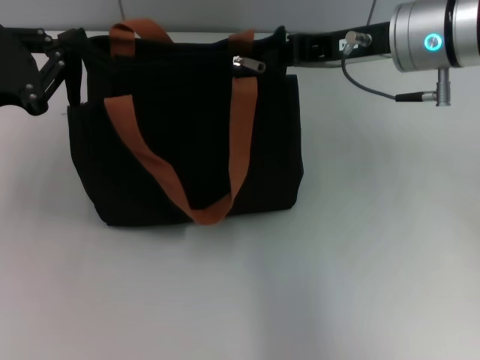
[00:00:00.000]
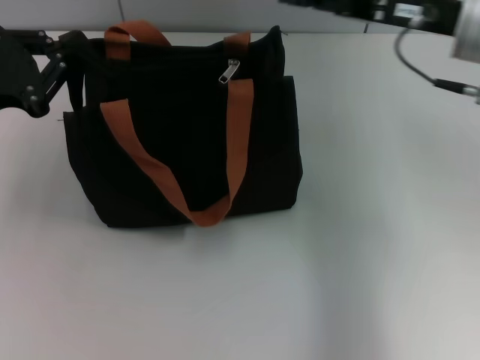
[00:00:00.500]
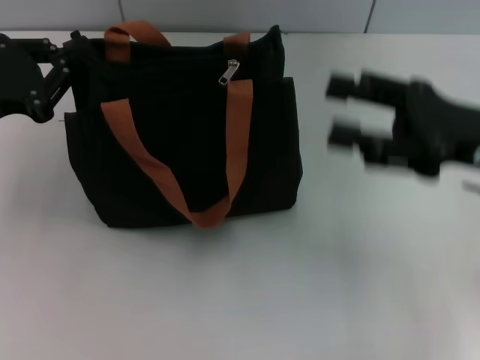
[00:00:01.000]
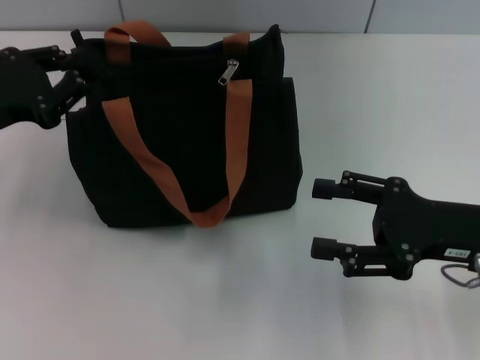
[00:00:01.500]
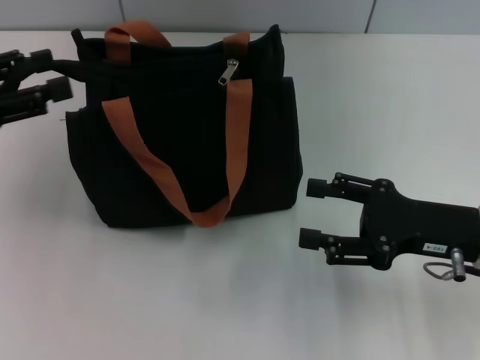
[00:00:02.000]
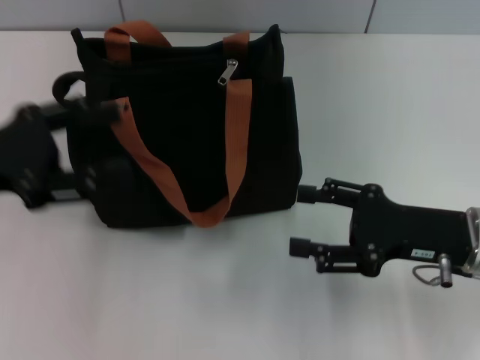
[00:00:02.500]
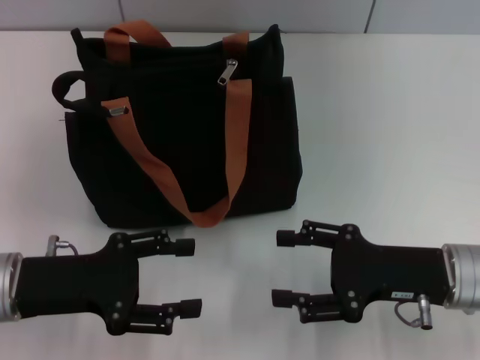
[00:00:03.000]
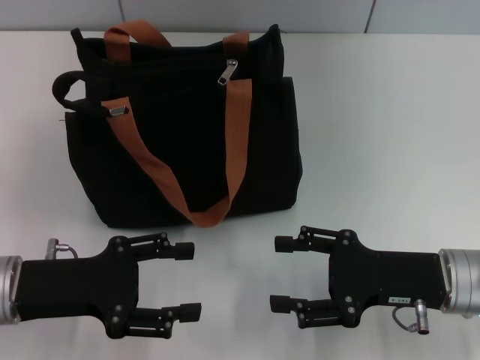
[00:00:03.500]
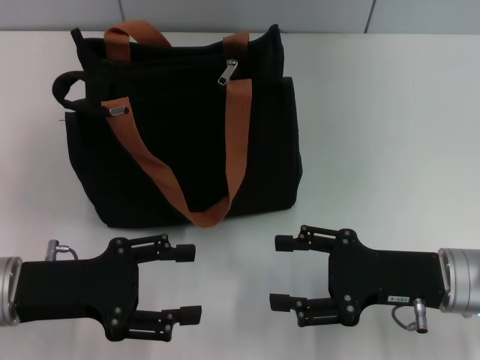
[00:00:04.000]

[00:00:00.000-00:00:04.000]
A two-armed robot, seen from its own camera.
Step, 00:00:00.500 to 00:00:02.000: Grab the zipper with your left hand.
00:00:00.000 to 00:00:02.000: The right gripper heads backward, downward and to the right, covering approximately 20 cm, and opens up, while the left gripper opens up.
00:00:02.000 to 00:00:04.000: The left gripper goes about 15 cm downward, to the right and backward.

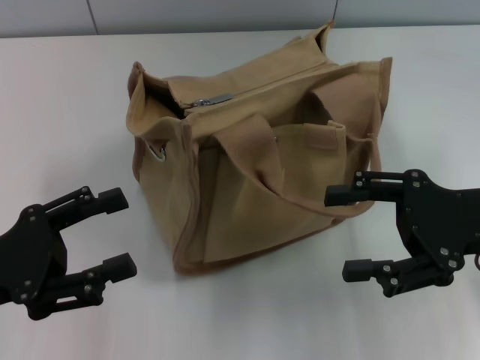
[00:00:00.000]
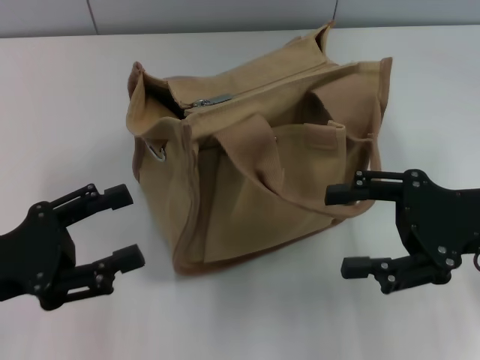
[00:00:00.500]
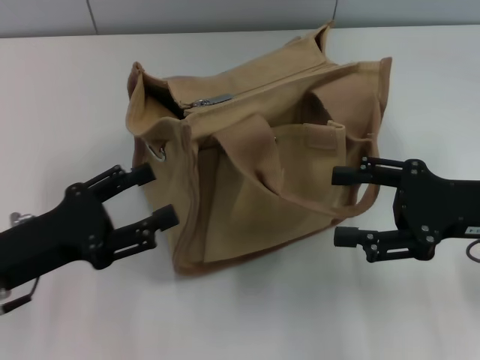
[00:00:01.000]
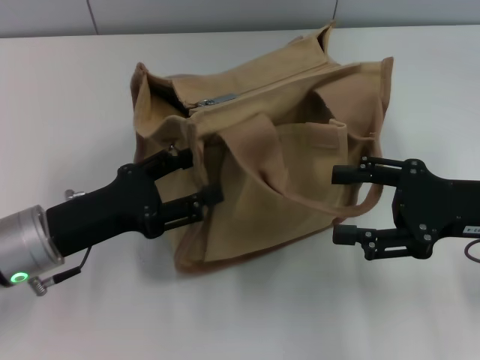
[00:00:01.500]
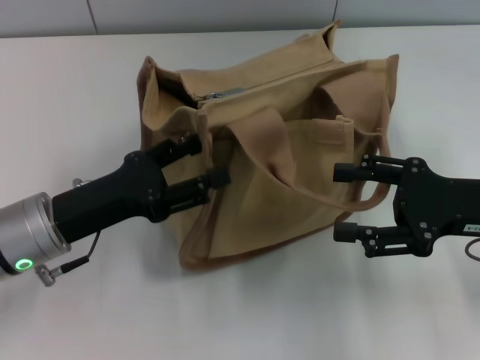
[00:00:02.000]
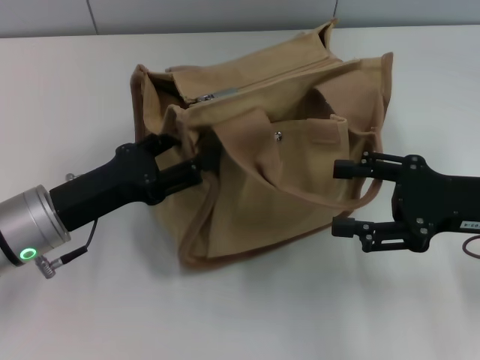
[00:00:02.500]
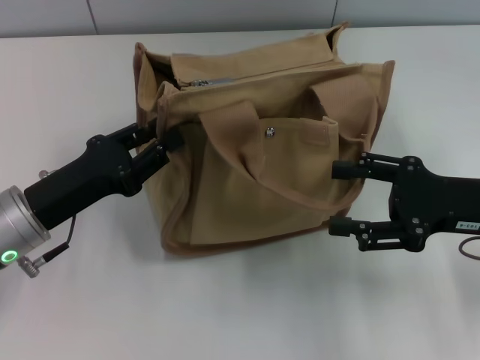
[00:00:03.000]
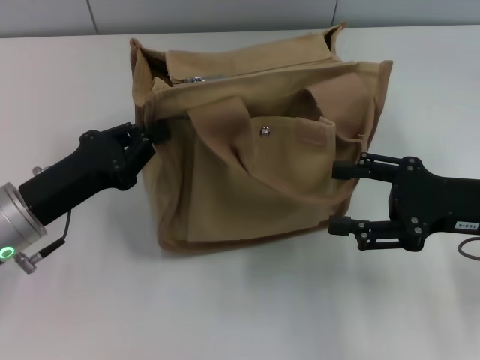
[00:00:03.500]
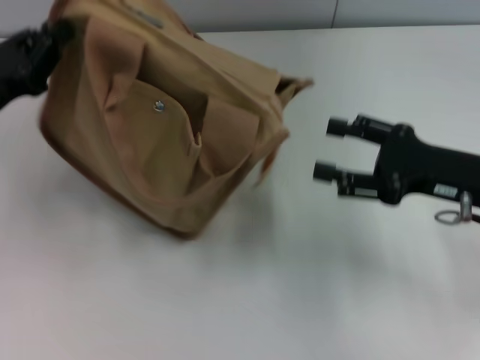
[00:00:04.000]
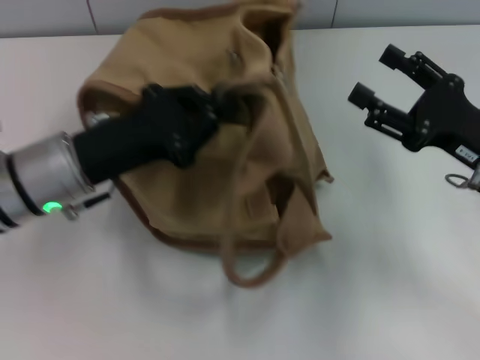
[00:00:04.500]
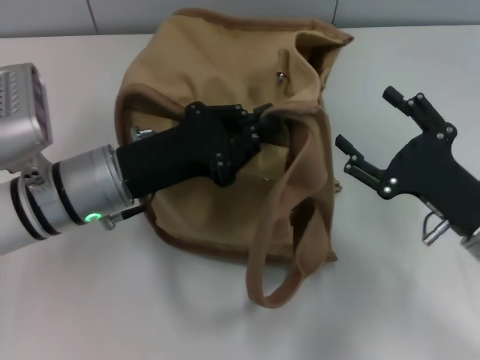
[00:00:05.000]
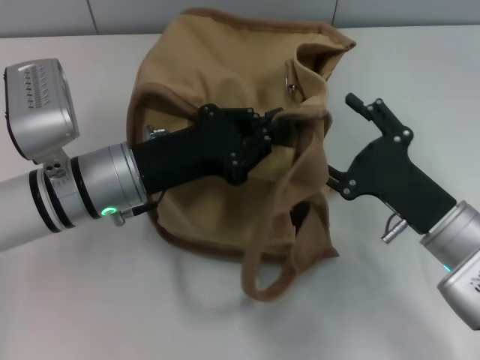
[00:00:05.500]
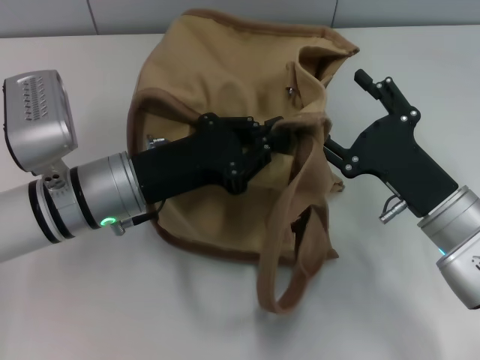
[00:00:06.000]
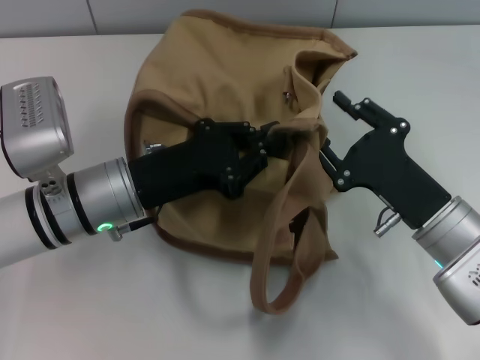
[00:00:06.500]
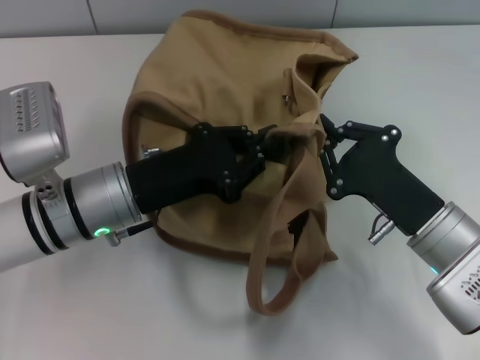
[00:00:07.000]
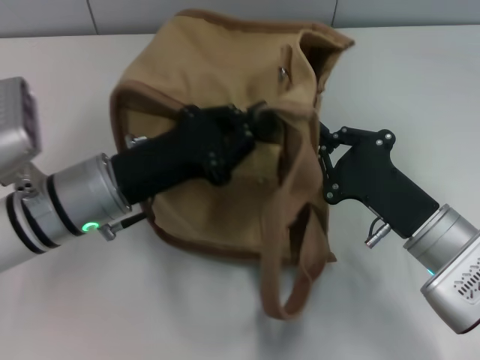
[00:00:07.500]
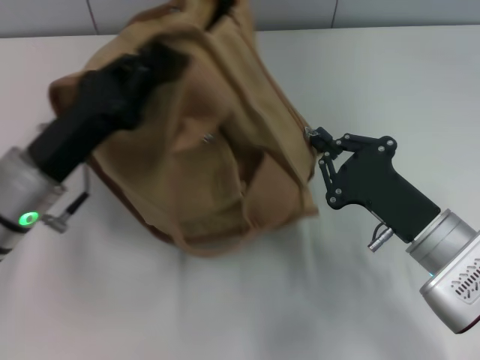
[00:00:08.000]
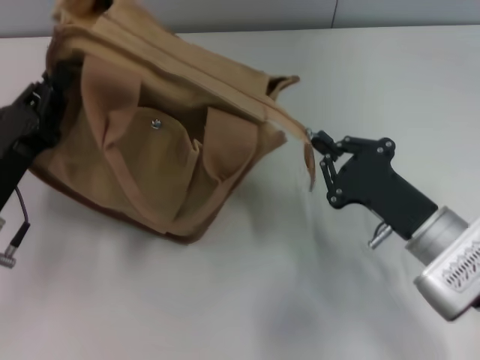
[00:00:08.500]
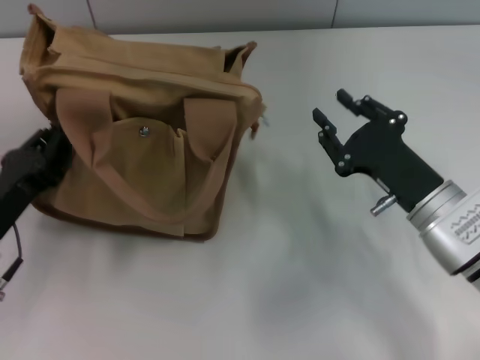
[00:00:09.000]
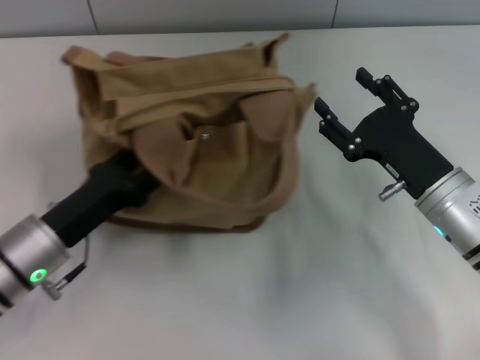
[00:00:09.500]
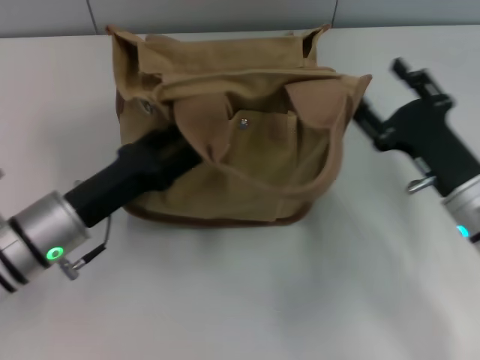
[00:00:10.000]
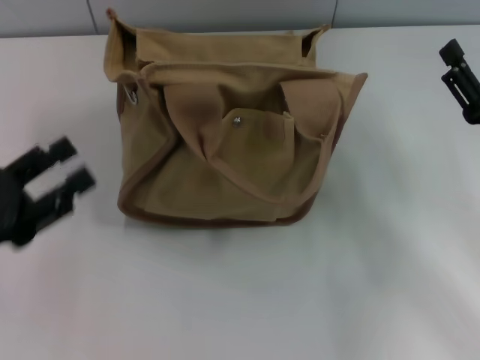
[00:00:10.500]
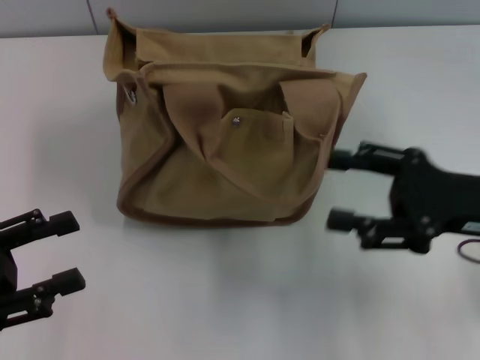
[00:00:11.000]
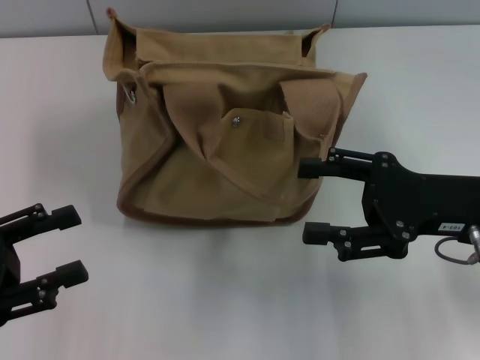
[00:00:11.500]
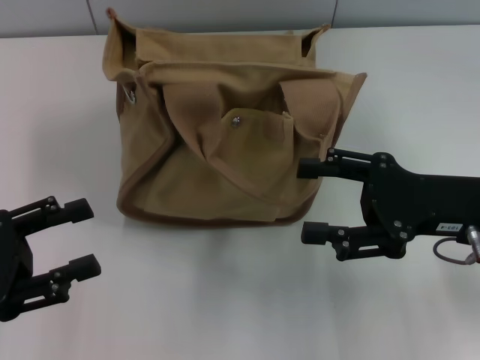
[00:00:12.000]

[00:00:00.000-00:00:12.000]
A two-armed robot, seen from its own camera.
Step, 00:00:00.000 to 00:00:08.500: Pull open the zipper with your right hand.
Step, 00:00:09.000 to 00:00:10.000: Grab the bag with your left hand.
00:00:00.000 to 00:00:02.000: The left gripper shifts approximately 10 cm to the right and forward.
00:00:02.000 to 00:00:04.000: The left gripper moves to the left, about 10 cm, and closes.
00:00:04.000 to 00:00:06.000: The right gripper is displaced to the left and downward by roughly 10 cm; the left gripper moves to the right, some 15 cm.
00:00:06.000 to 00:00:08.000: The left gripper is displaced to the left by approximately 5 cm, while the right gripper closes its fingers.
00:00:08.000 to 00:00:10.000: The left gripper opens; the right gripper opens up.
00:00:10.000 to 00:00:12.000: The right gripper heads upward, covering approximately 5 cm. Meanwhile the left gripper moves to the left, backward and upward, roughly 15 cm.
